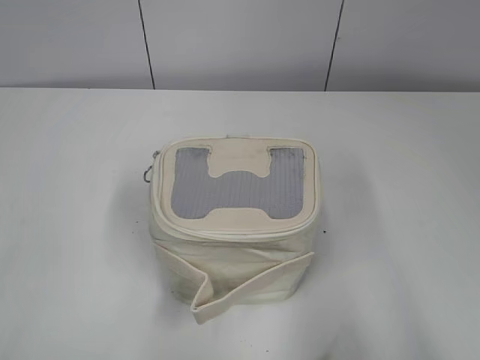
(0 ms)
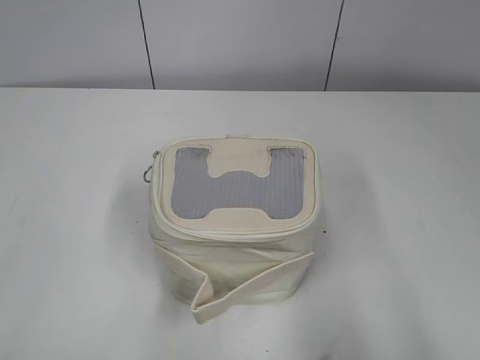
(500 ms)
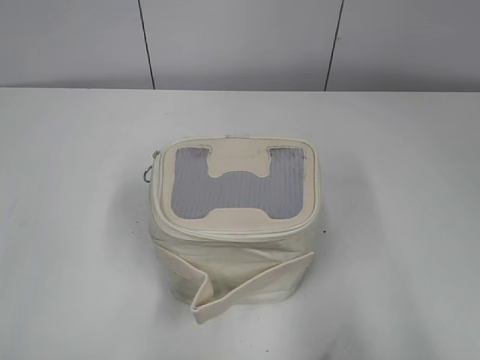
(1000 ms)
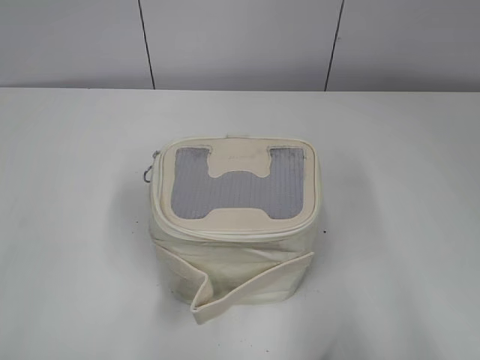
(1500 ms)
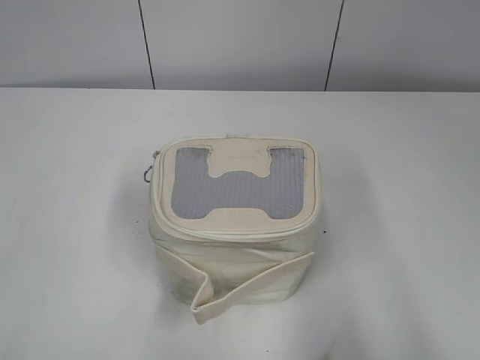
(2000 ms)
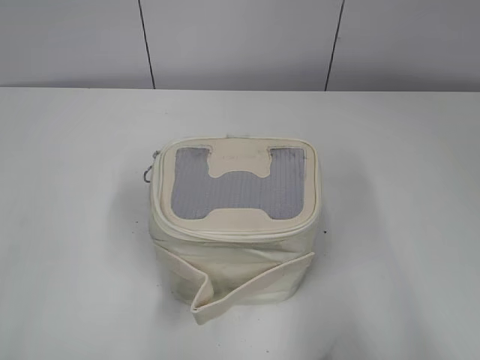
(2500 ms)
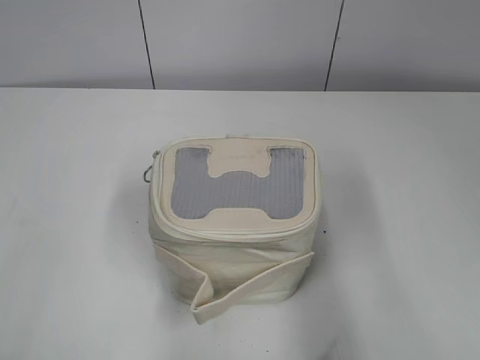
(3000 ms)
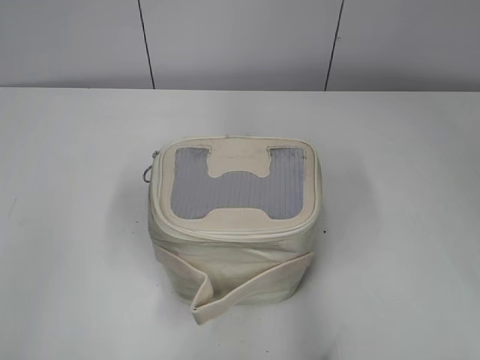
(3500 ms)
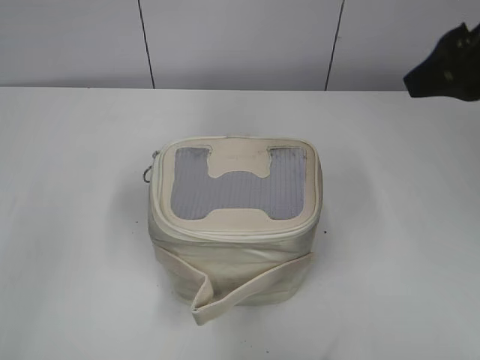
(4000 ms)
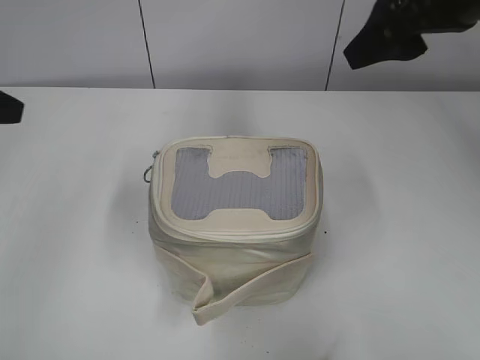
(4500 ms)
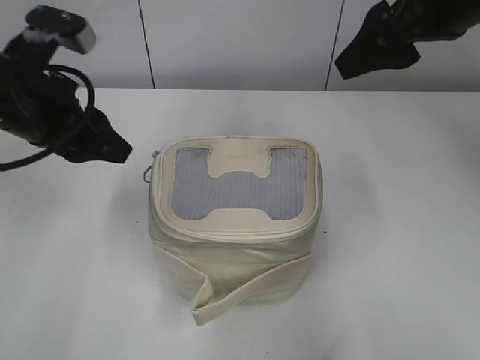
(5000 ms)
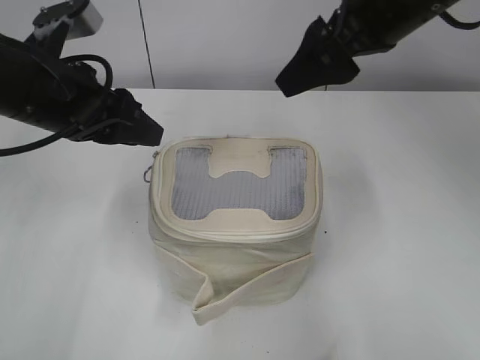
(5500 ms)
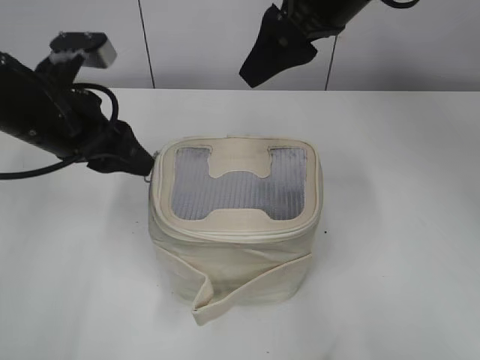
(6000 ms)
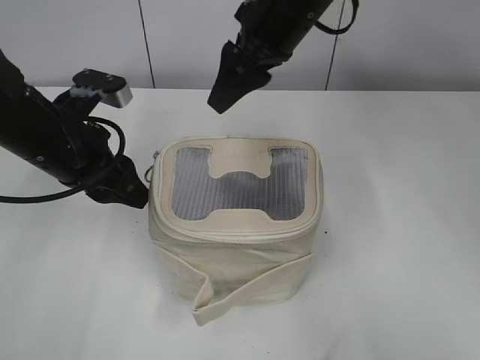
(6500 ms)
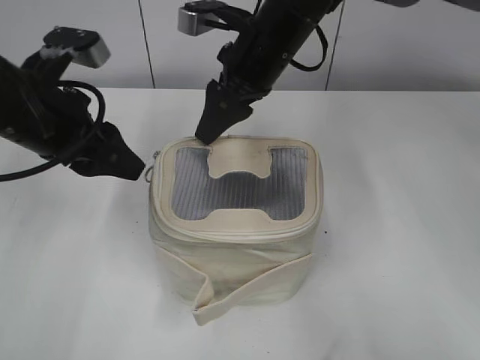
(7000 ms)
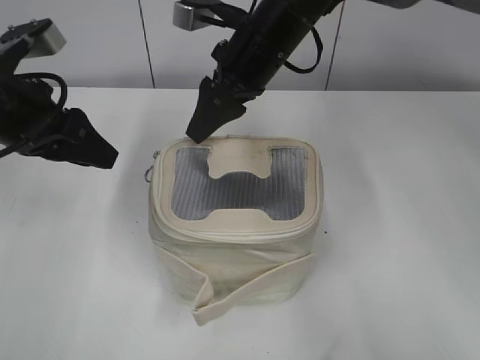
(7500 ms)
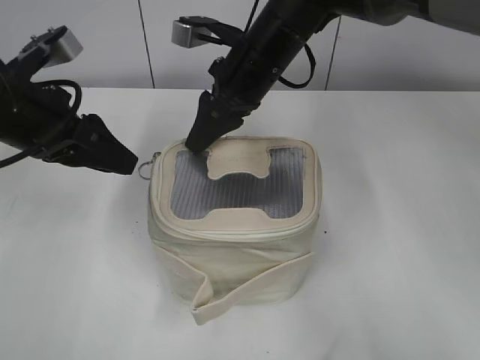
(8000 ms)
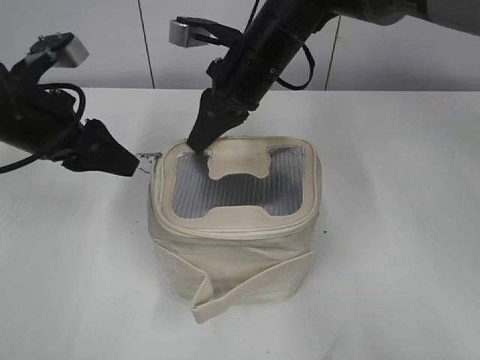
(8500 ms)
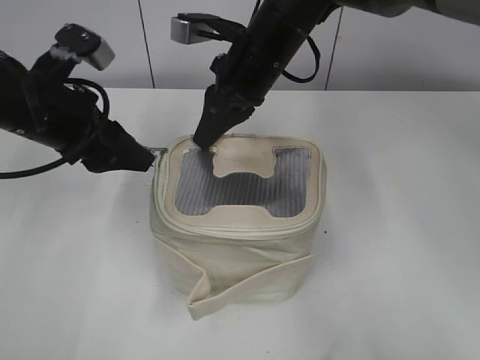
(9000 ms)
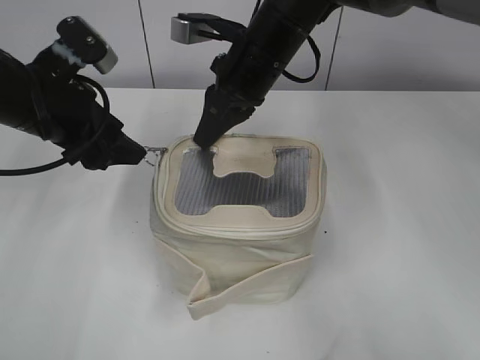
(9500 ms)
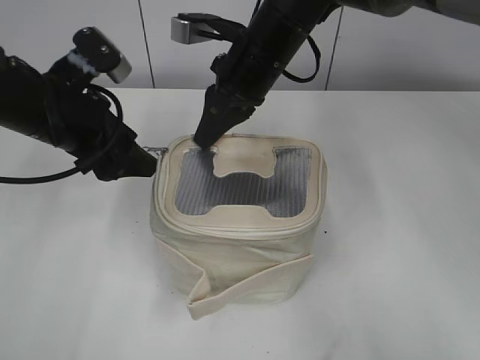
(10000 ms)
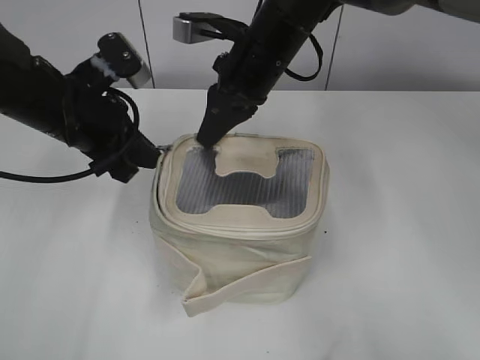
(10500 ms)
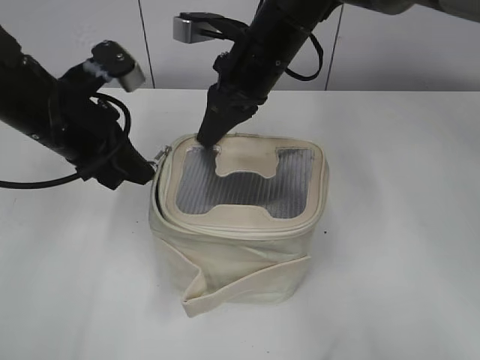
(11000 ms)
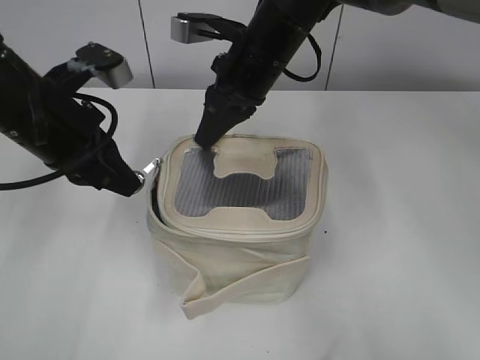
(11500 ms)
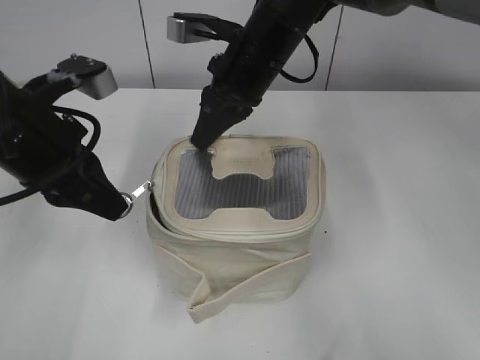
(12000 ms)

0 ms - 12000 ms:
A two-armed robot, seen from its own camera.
2000 ms - 4000 ms: Both grippers move forward, approximately 20 cm.
4000 ms - 6000 ms: The right gripper moves to the left and forward, about 15 cm; the left gripper moves to the right and forward, about 15 cm.
6000 ms - 8000 ms: The right gripper travels downward and to the left by about 15 cm.
8000 ms - 10000 ms: The right gripper closes.
10000 ms - 12000 ms: The left gripper moves backward, some 5 cm, and closes up.

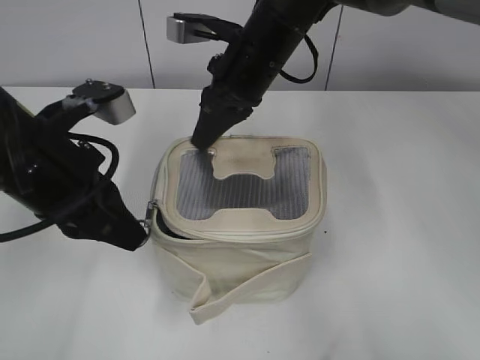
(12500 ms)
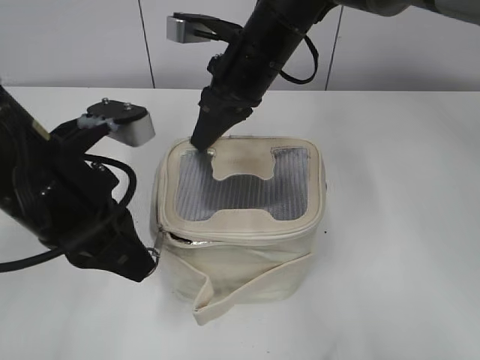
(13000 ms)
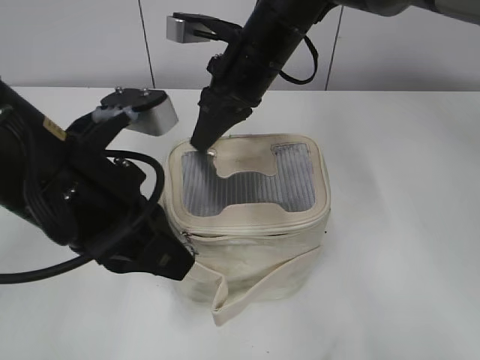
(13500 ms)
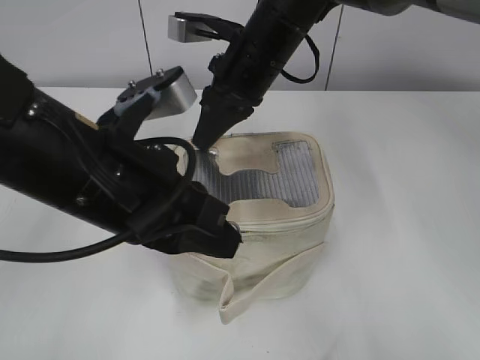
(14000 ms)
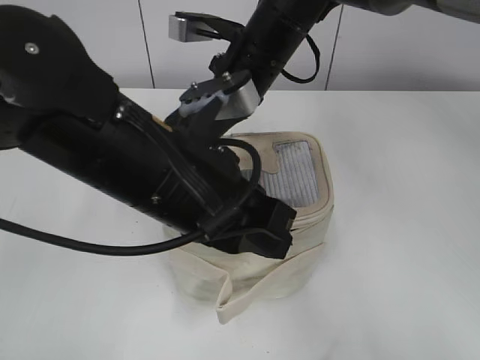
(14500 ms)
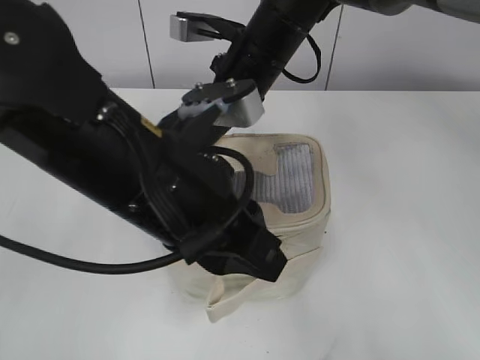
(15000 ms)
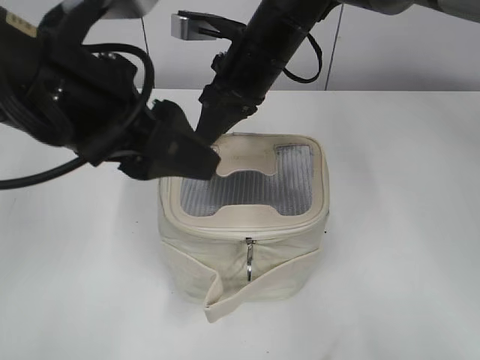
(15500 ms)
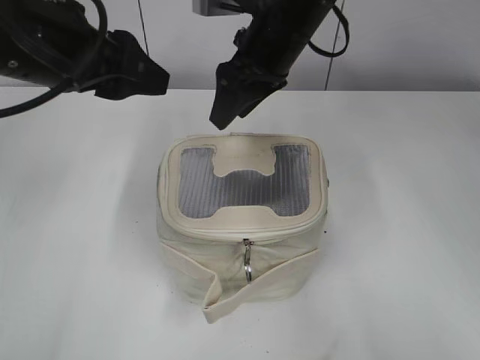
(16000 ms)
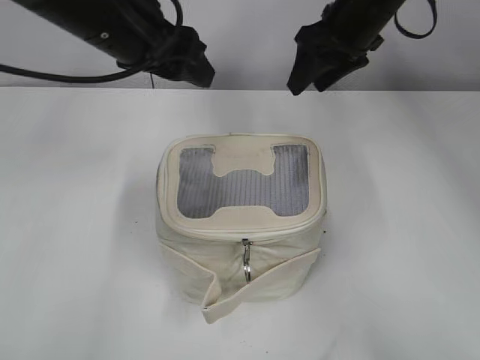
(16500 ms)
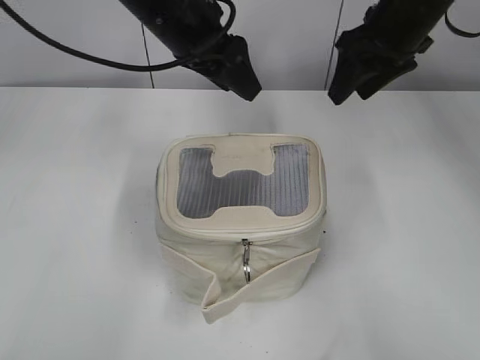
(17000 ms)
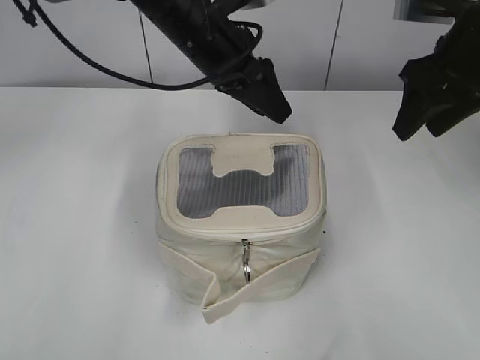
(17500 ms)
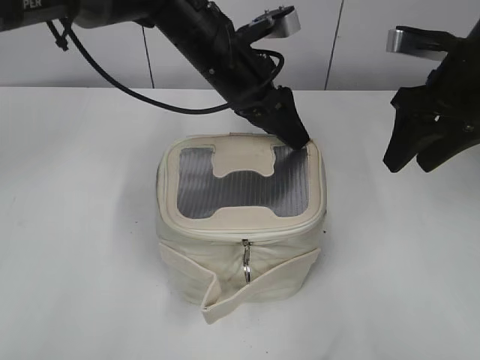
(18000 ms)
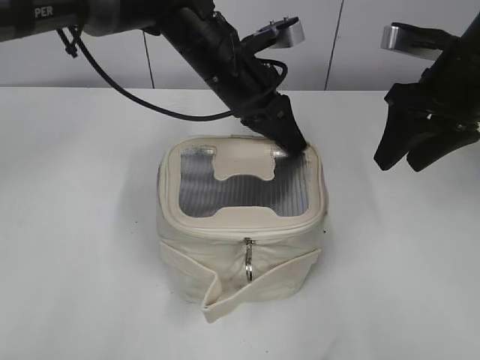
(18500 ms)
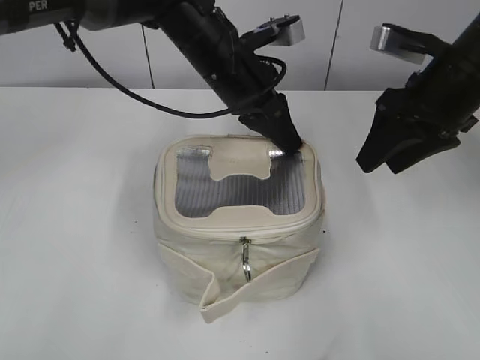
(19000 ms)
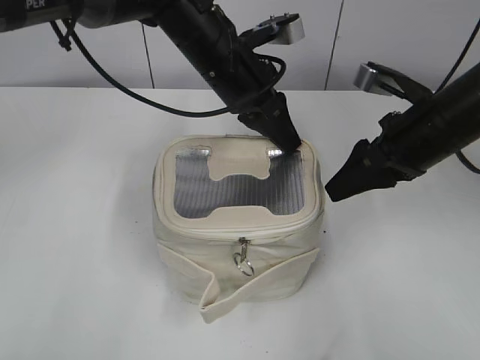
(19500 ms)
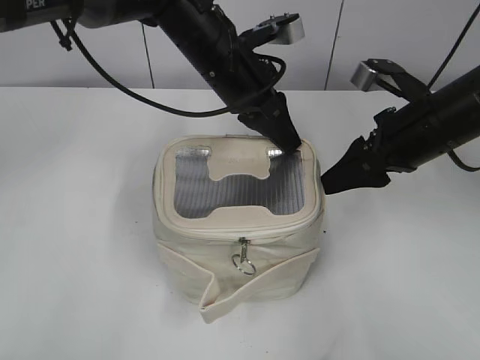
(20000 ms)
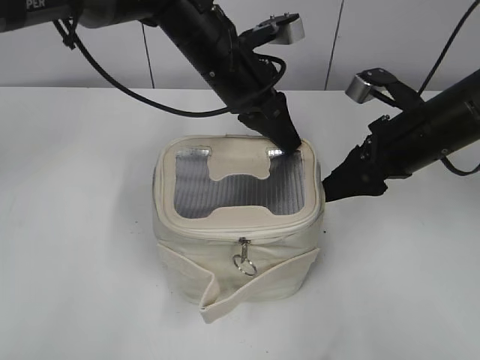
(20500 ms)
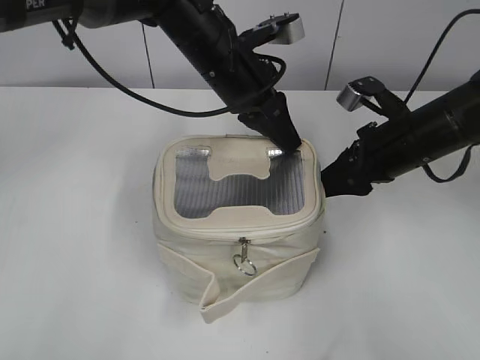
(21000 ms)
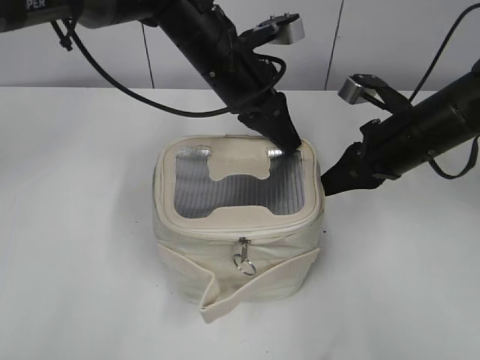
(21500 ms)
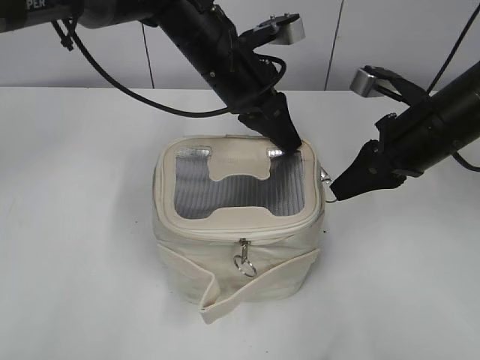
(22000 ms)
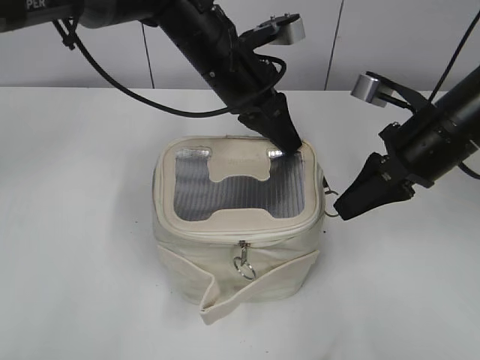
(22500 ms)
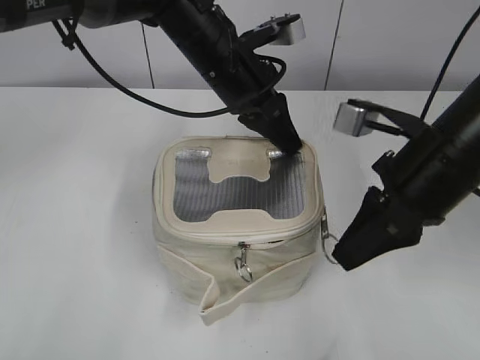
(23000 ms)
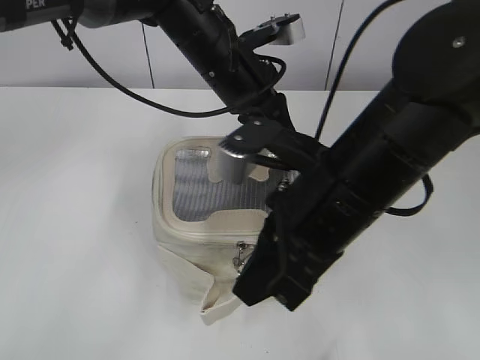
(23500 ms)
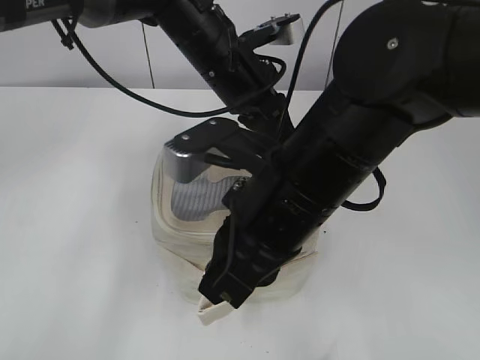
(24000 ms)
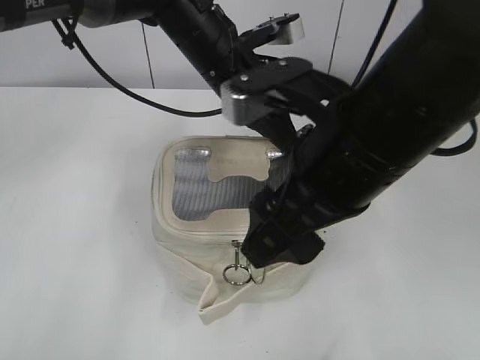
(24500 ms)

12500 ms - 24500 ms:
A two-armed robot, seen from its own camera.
Step, 12500 ms - 15000 ms: Zip up the bag with your left hand.
Step, 16000 ms - 24000 ms: Zip up the bag with your right hand.
12500 ms - 14500 ms: The left gripper heads to the right, covering approximately 10 cm.
14500 ms - 16500 ms: The left gripper heads forward and to the left, covering about 15 cm, and opens; the right gripper is displaced to the right and forward by approximately 10 cm, and opens up.
16500 ms - 18500 ms: The left gripper moves to the right, downward and forward, some 15 cm, and closes up, while the right gripper travels backward and to the right by some 15 cm.
18500 ms - 20500 ms: The right gripper goes some 5 cm downward.
20500 ms - 22500 ms: The right gripper closes up.
22500 ms - 24500 ms: The right gripper travels to the left, backward and upward by about 15 cm, and opens its fingers.

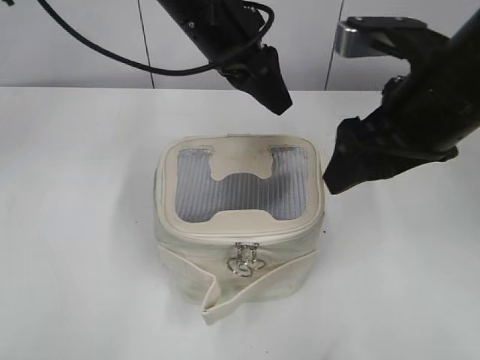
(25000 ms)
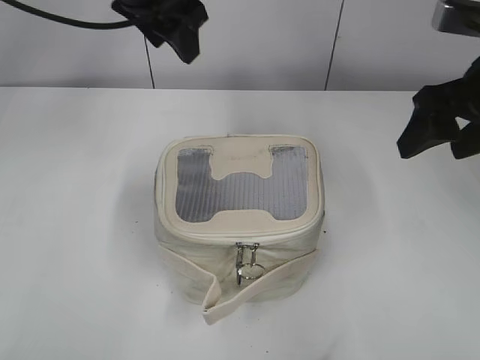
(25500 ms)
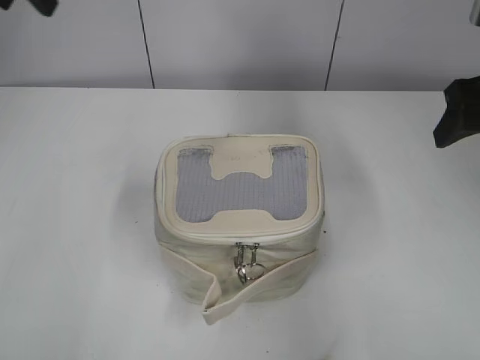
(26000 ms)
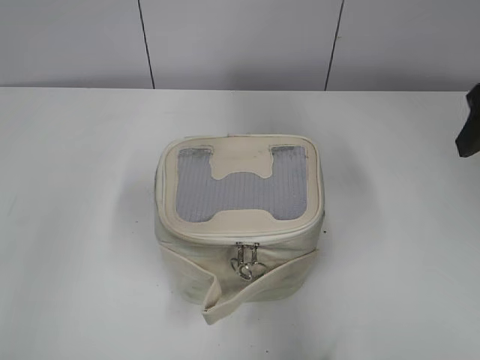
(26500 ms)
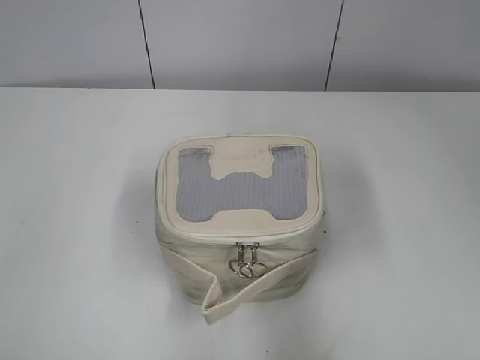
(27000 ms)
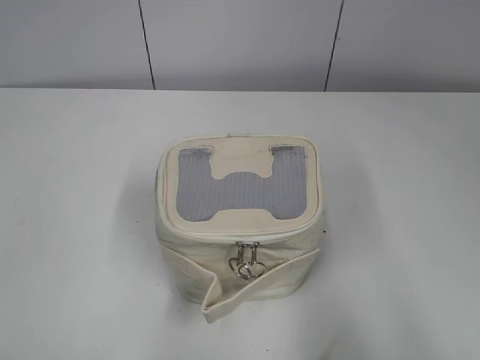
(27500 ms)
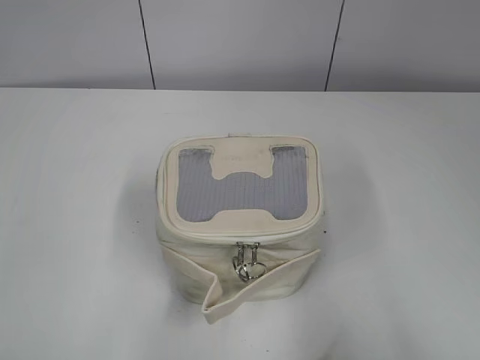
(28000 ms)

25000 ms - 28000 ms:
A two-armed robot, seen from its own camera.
25000 ms - 26500 ms: The right gripper moves to the right, some 10 cm, while the left gripper travels to the left and backward by roughly 30 cm.
26500 ms - 28000 ms: The left gripper moves backward and downward, some 20 cm, while the right gripper travels backward by some 30 cm.
